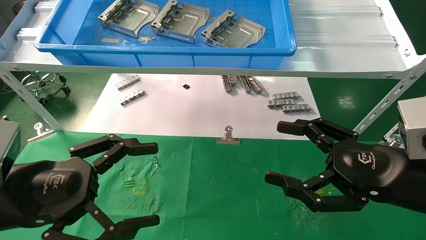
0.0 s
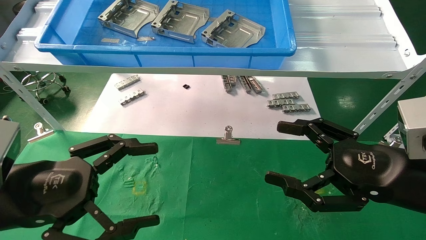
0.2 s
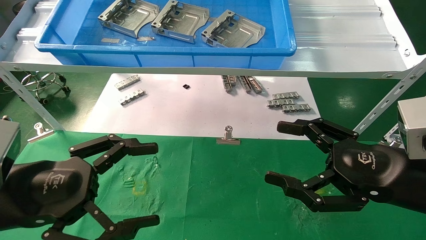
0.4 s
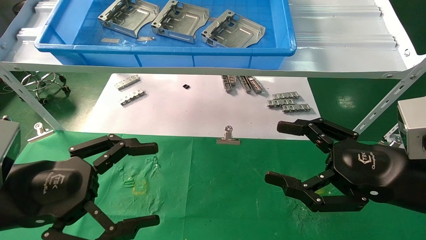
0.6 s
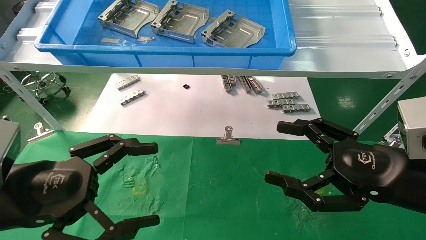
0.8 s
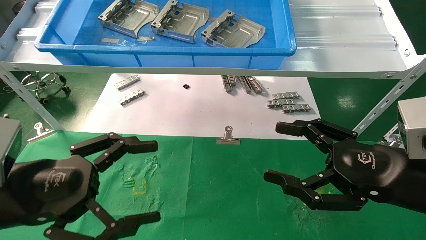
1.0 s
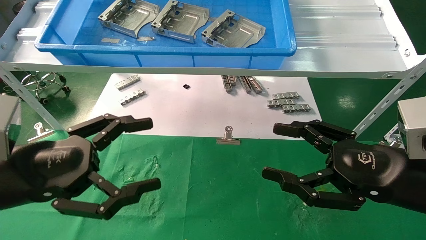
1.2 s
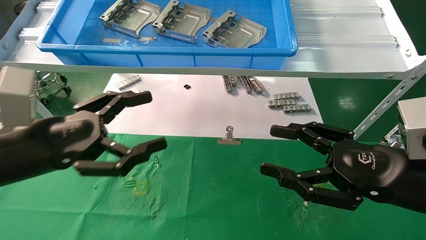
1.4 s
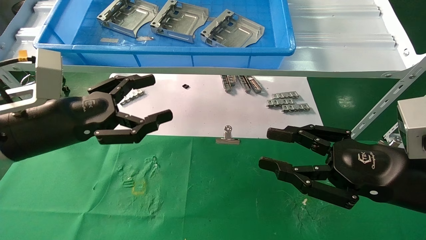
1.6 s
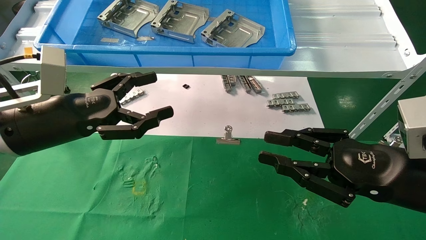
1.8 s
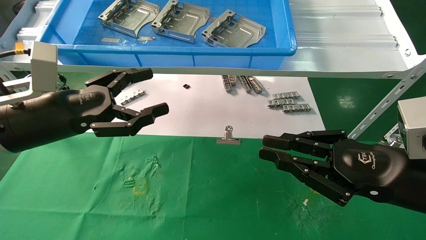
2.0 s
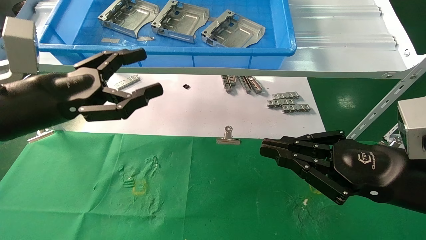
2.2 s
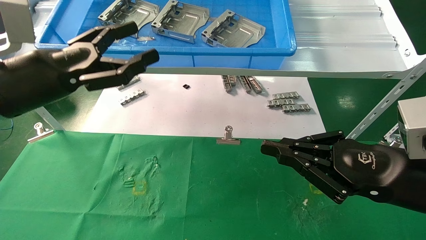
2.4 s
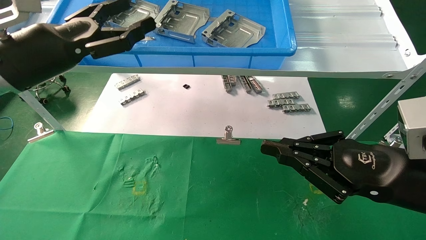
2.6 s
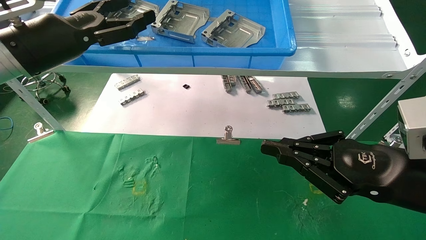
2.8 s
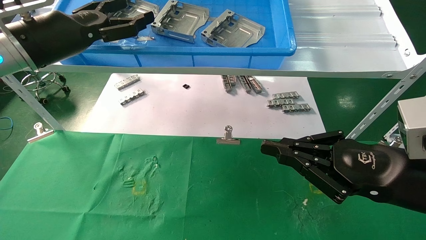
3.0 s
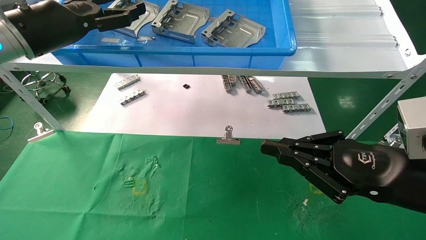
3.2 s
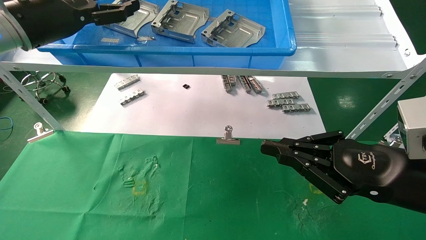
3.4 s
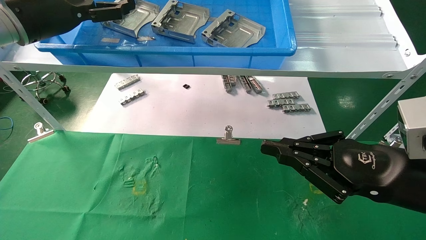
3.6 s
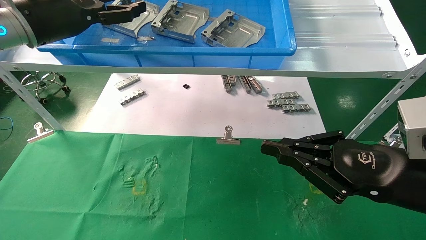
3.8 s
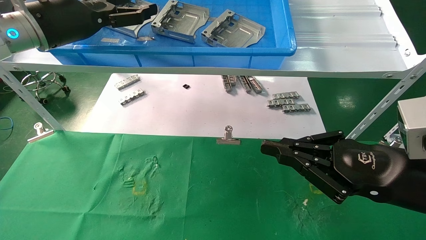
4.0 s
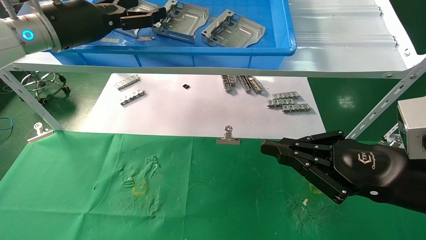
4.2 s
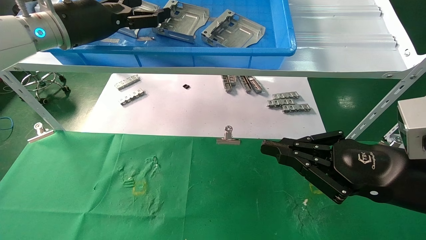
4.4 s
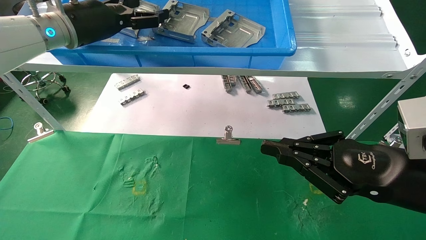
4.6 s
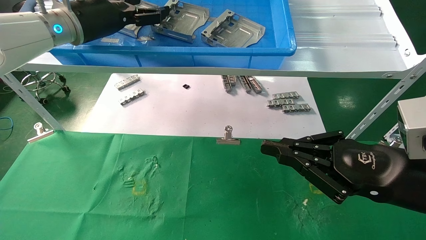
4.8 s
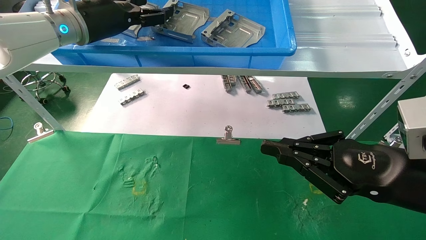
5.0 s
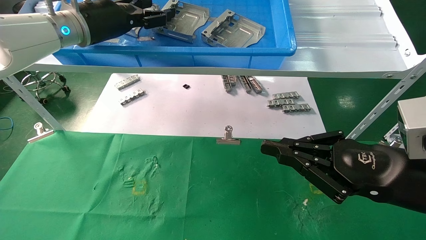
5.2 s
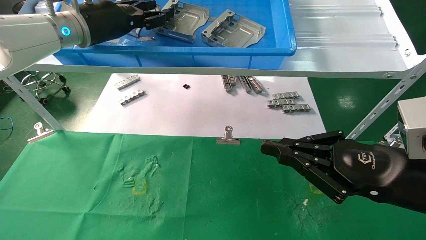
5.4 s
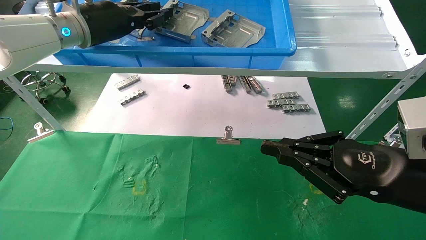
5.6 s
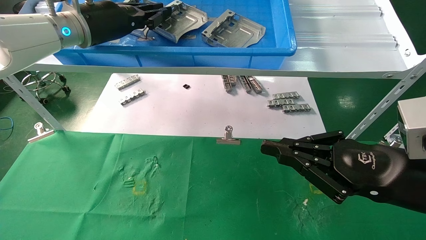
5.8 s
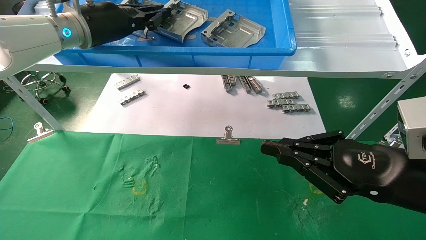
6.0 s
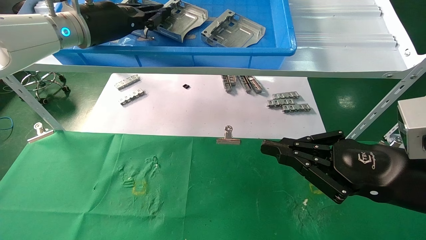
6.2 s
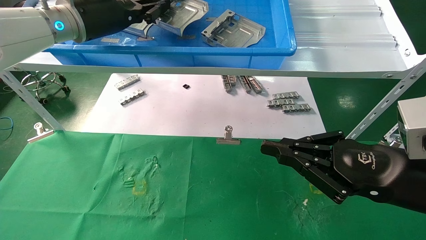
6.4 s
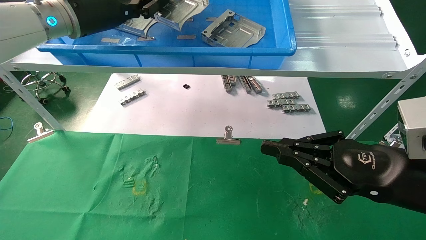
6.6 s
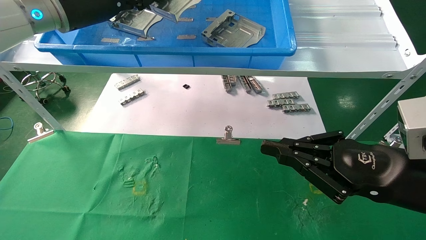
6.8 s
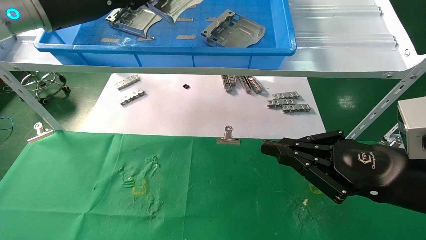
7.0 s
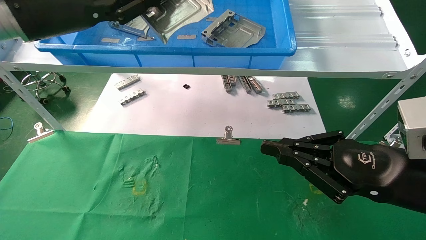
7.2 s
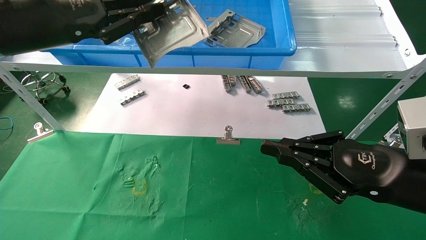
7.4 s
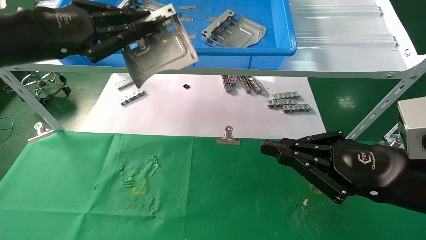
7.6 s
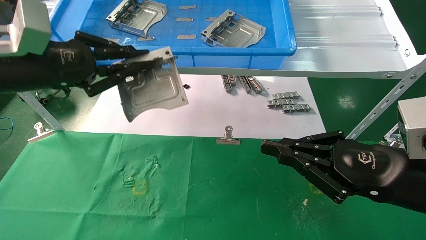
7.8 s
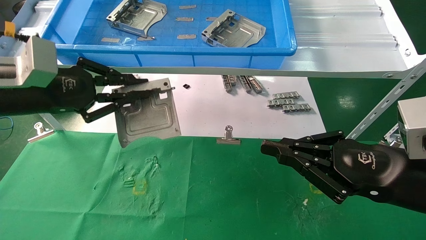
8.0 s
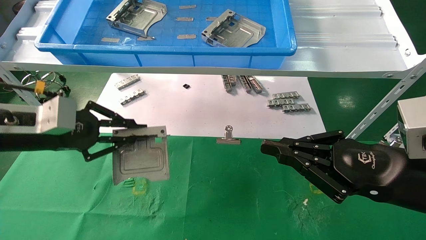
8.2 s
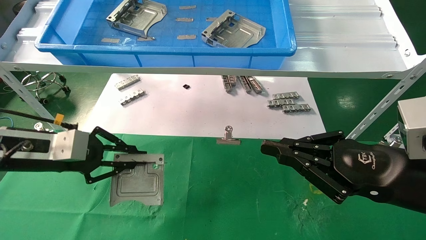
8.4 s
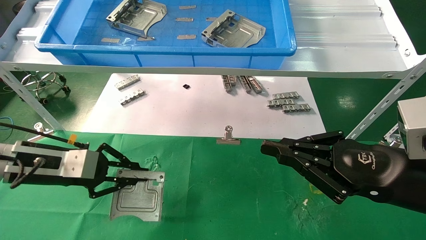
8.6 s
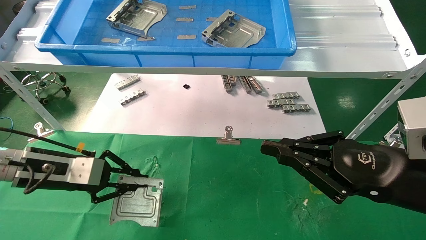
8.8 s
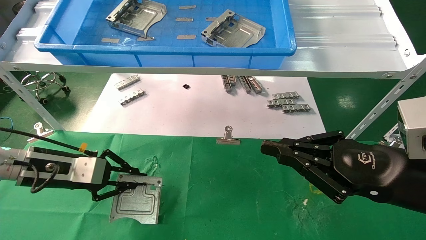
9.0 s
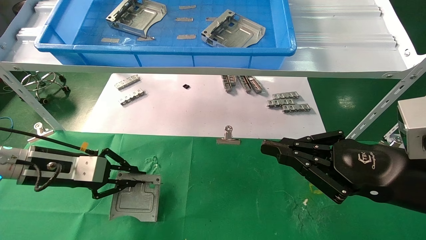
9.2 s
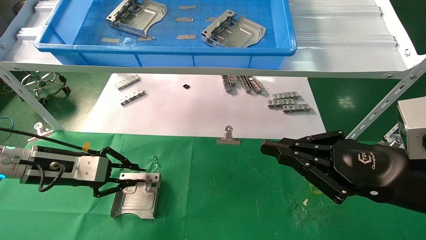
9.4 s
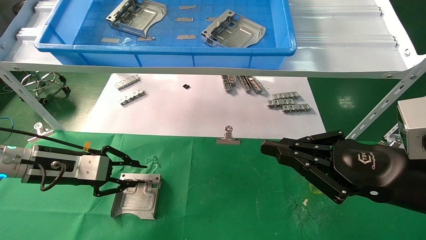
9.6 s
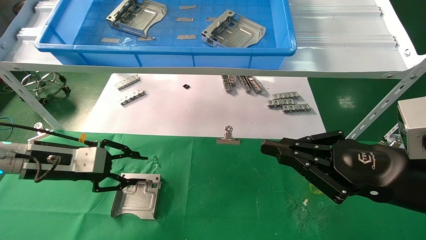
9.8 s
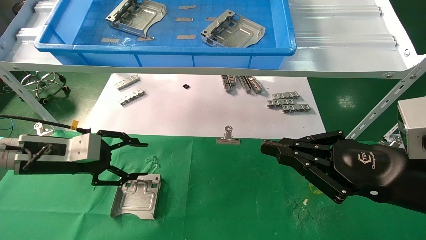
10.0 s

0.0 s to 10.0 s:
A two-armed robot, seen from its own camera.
Task of the whole recording: use the mechanical arm to pick up the parts and place them on the table.
Step, 1.4 to 6.2 s: Pick up the hard drive bracket from the feeding area.
Step, 6.4 to 9.4 s: Place the hard drive bracket into the box.
0.0 to 1.4 s: The left gripper travels forward by roughly 5 cm.
1.4 to 2.8 s: The right gripper closes its fingers; the left gripper heads upward and forward, covering roughly 15 cm.
2.8 to 4.2 s: The left gripper is displaced forward by roughly 5 cm.
4.2 to 5.8 s: The left gripper closes its fingers.
5.8 to 7.2 s: The left gripper moves backward, about 10 cm.
7.2 to 8.6 s: The left gripper heads downward, covering approximately 20 cm.
8.6 to 10.0 s: The left gripper opens up.

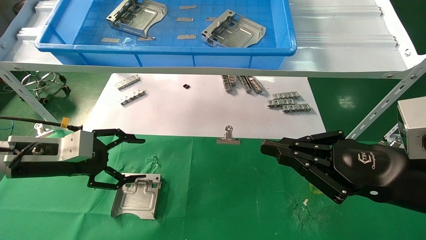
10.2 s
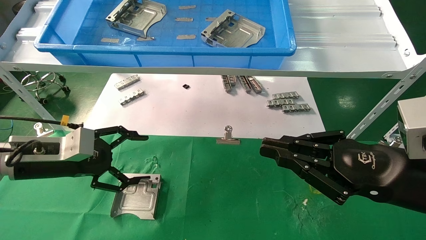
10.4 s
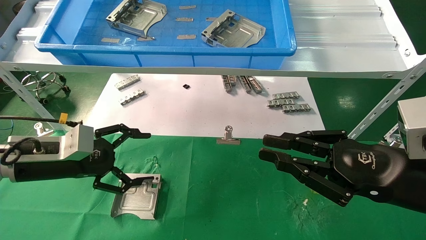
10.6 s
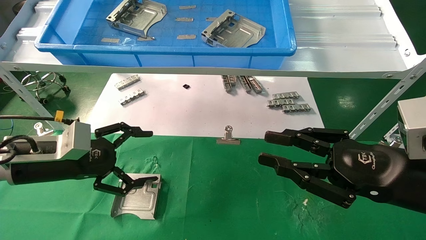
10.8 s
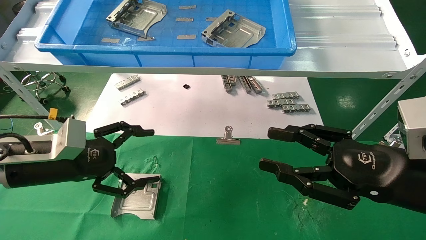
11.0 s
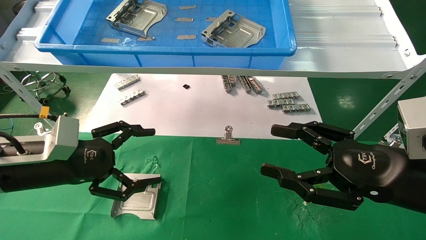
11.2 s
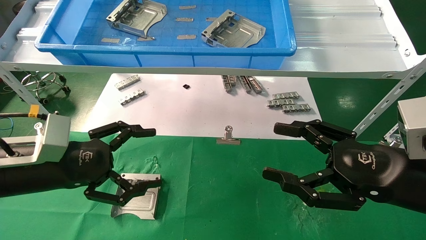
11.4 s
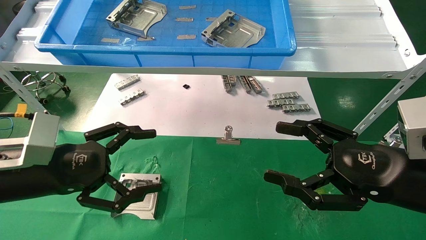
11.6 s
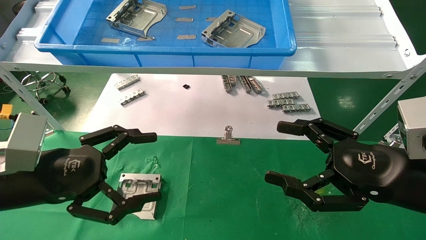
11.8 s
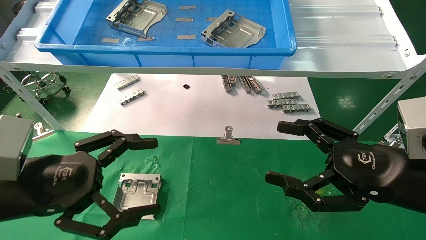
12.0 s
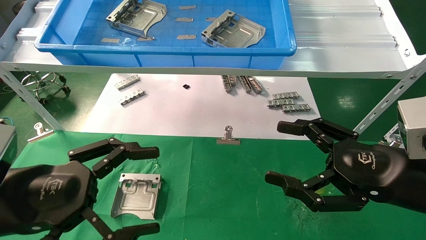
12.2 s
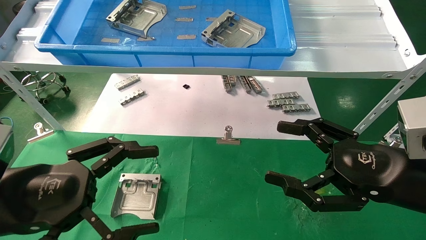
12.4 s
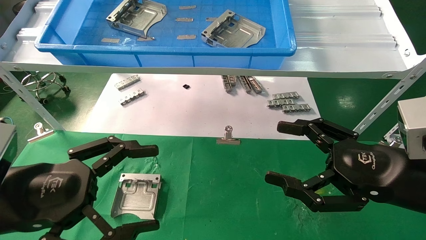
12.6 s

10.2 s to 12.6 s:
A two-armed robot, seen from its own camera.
Task of the whole recording: use the mechanical arm to pick up the parts and place them on the table.
10.2 to 11.4 s: The right gripper opens. The left gripper shifts roughly 5 cm backward, and opens its fingers.
11.4 to 12.6 s: The left gripper heads backward, covering some 10 cm.

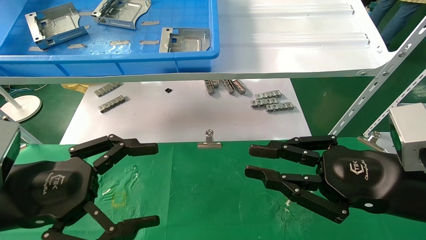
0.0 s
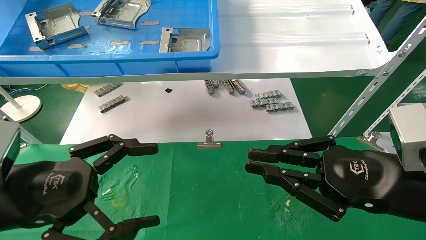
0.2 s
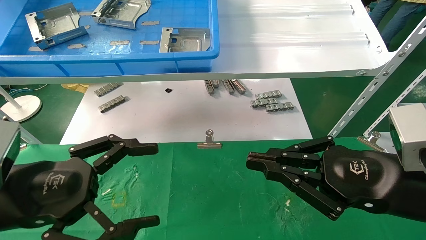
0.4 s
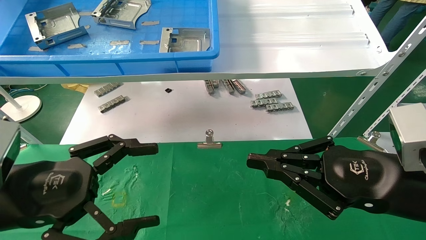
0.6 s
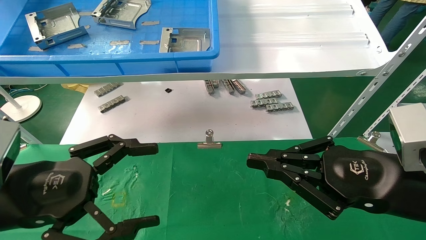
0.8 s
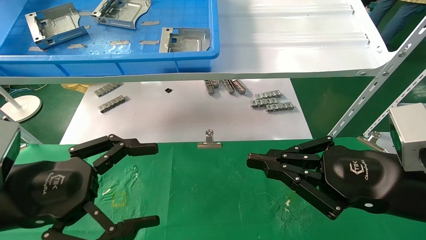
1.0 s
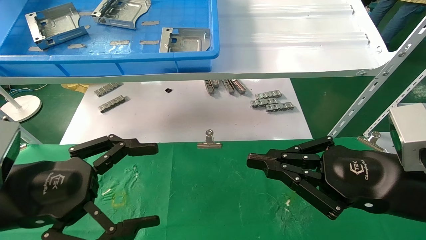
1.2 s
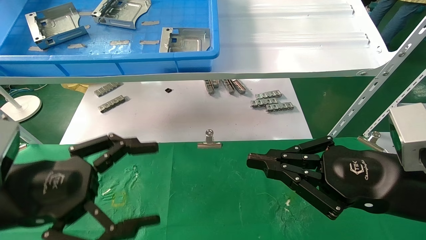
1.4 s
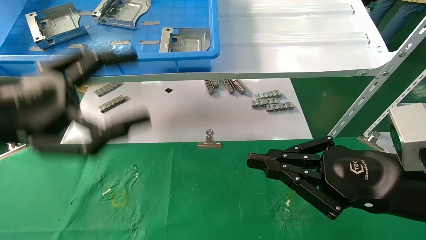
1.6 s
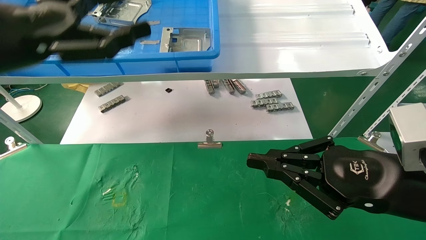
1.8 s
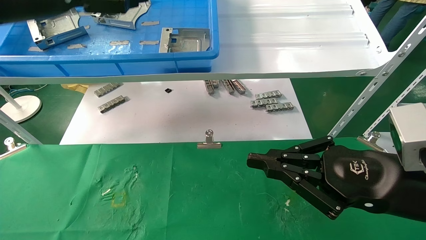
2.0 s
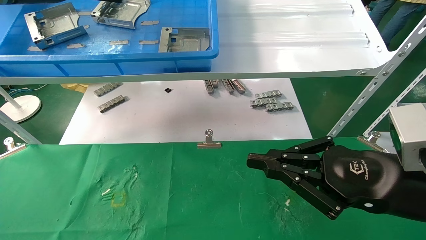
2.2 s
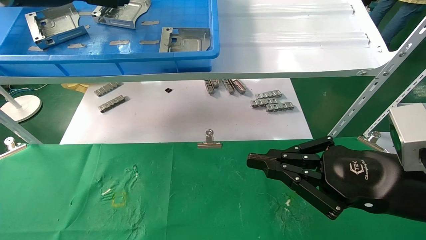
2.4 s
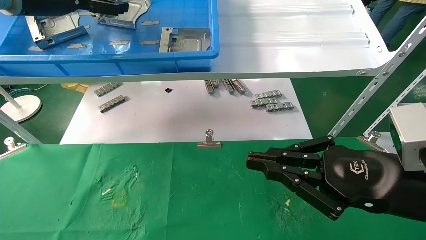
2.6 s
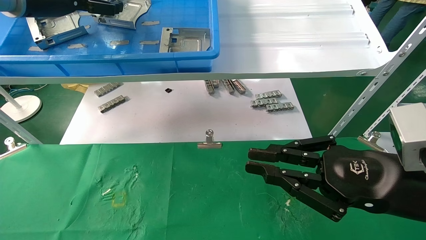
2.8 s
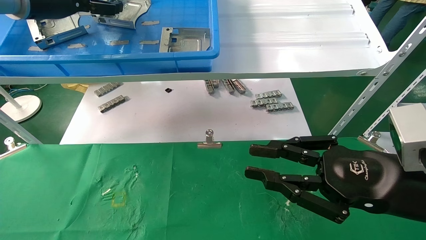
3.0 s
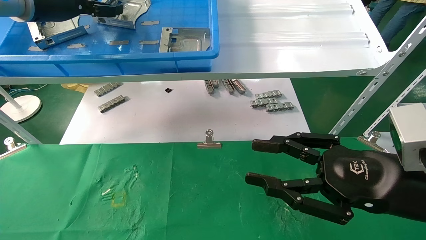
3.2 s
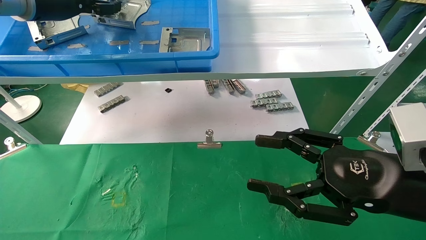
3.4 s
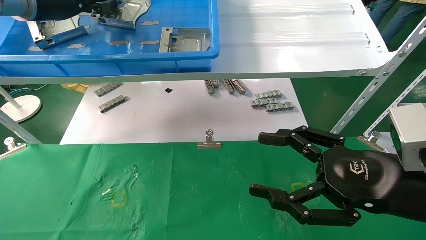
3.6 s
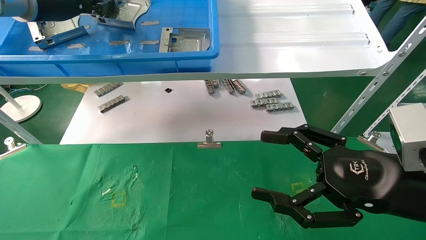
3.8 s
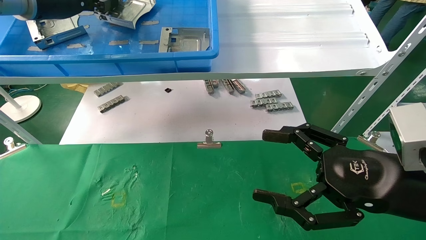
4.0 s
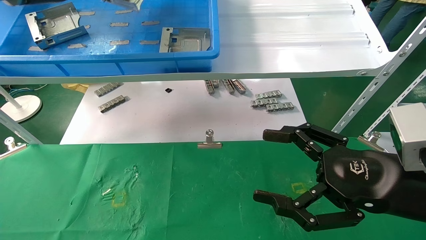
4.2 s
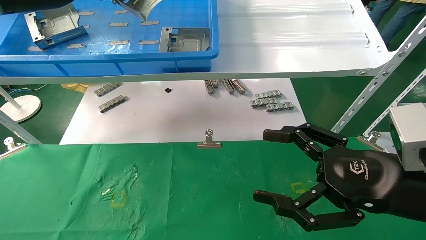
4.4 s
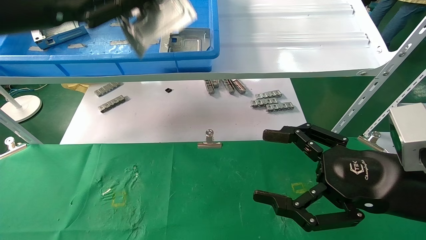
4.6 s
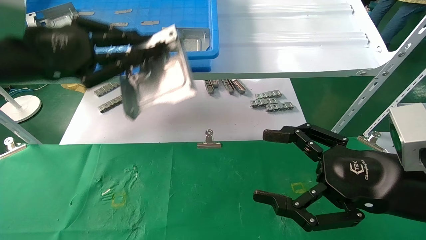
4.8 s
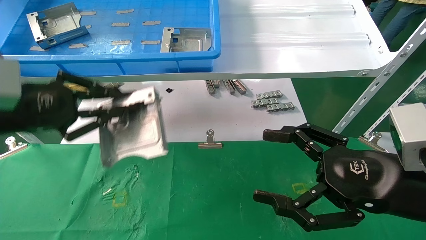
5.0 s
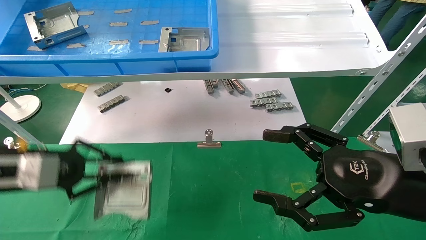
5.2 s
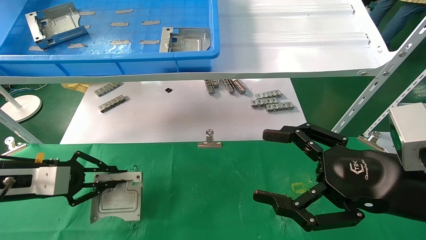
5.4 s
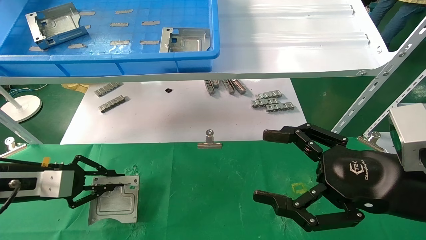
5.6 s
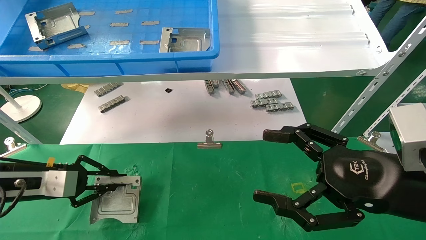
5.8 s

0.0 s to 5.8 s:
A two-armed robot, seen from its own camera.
Task of the whole recording: use the mechanical arm to pick up the parts and place them on the table.
Step, 1.8 to 4.0 s: Pick up the hard drive bracket from the feeding area.
0.0 to 1.4 s: The grippers move only a little.
1.4 to 2.8 s: The left gripper goes approximately 30 cm upward and forward.
2.8 to 4.4 s: The right gripper opens its fingers. Meanwhile the left gripper goes roughly 5 cm backward, and closes up.
4.4 to 5.8 s: The left gripper heads downward, covering approximately 30 cm.
